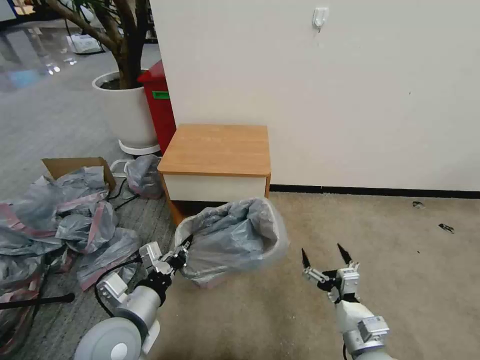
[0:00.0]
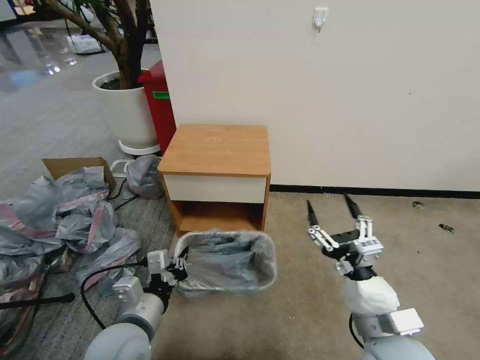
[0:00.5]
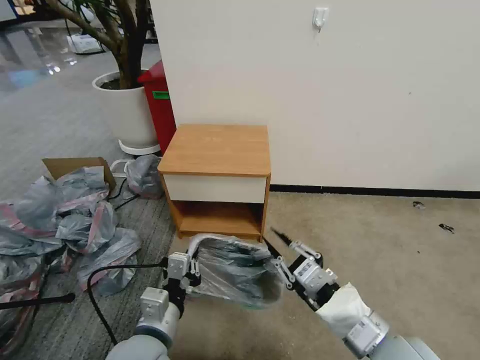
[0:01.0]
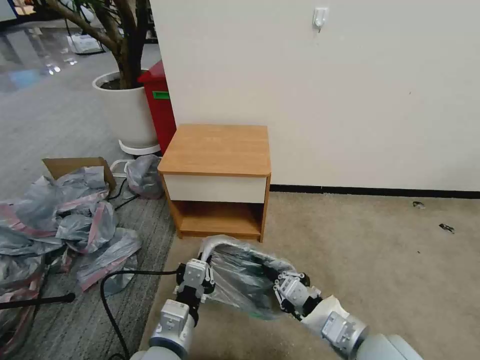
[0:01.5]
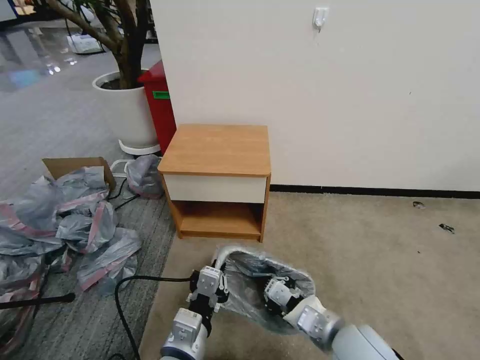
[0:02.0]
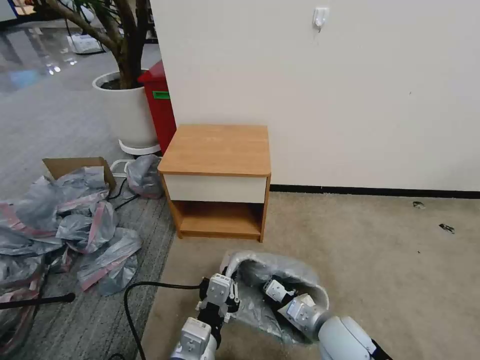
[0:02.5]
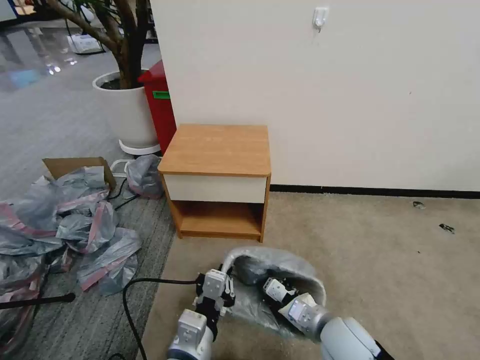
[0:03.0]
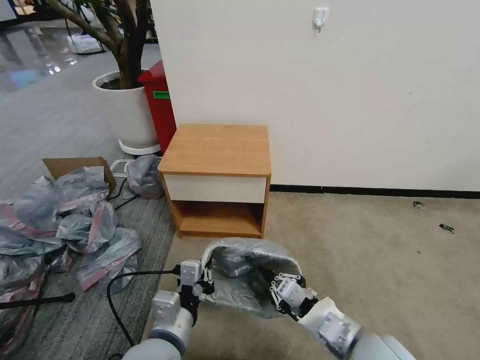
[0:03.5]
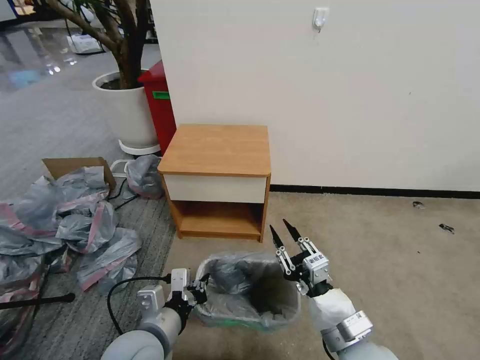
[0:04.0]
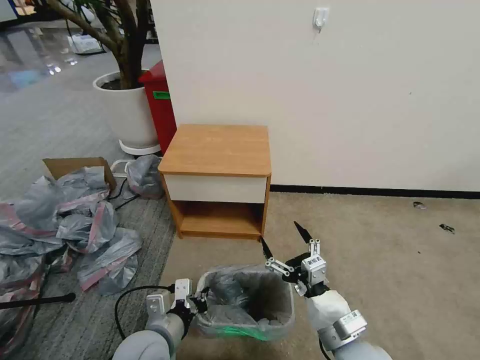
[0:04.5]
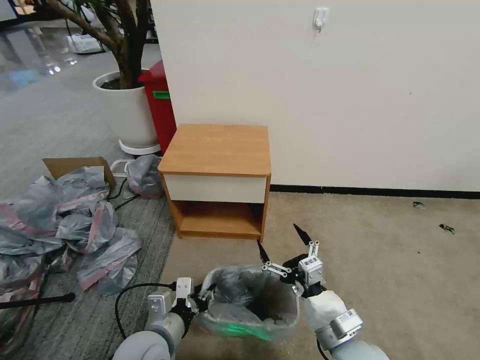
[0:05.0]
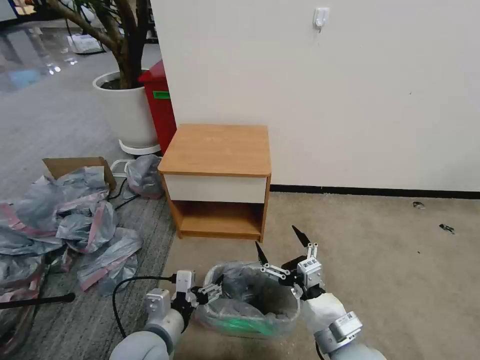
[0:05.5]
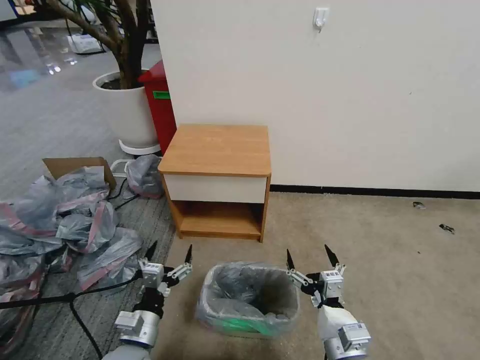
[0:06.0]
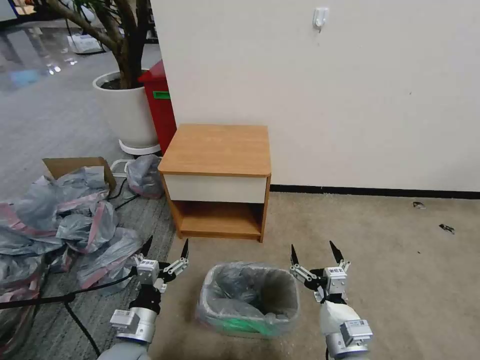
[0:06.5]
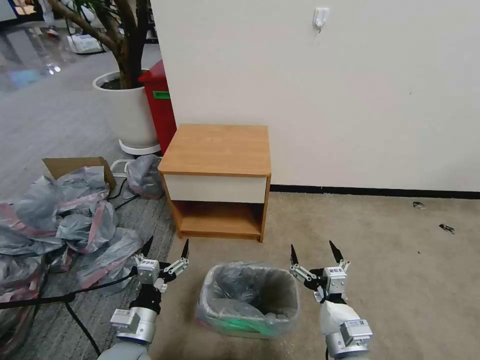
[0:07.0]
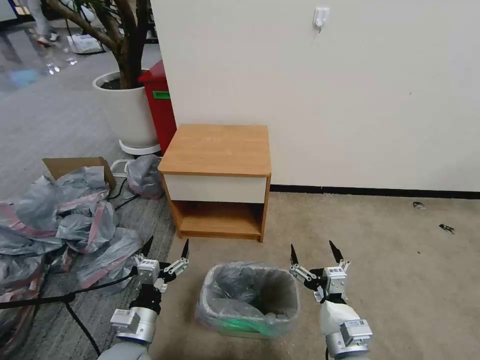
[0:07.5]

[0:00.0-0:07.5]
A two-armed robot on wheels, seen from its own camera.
Task of the whole recording: Pick up the garbage bag from the table and place it over the trash can.
0:00.0 to 0:02.0: The right gripper moves upward, some 5 cm, and closes its fingers; the left gripper shifts about 10 cm to the right and backward.
0:02.0 to 0:04.0: The left gripper shifts about 5 cm to the left. The right gripper reaches approximately 5 cm downward, then returns.
0:04.0 to 0:05.5: The left gripper opens its fingers. Meanwhile the right gripper opens.
0:05.5 to 0:07.5: The left gripper moves approximately 5 cm.

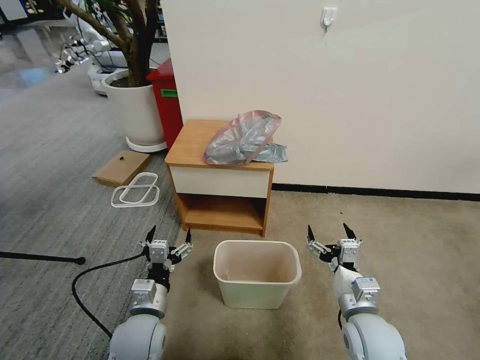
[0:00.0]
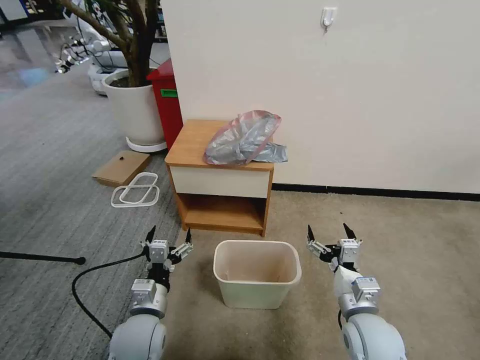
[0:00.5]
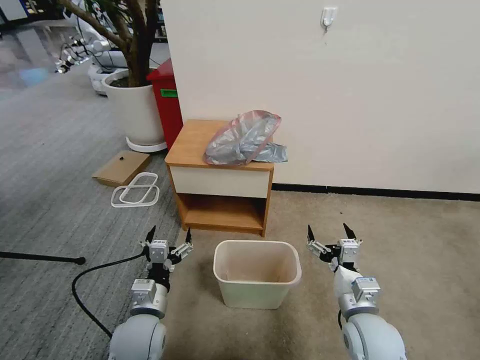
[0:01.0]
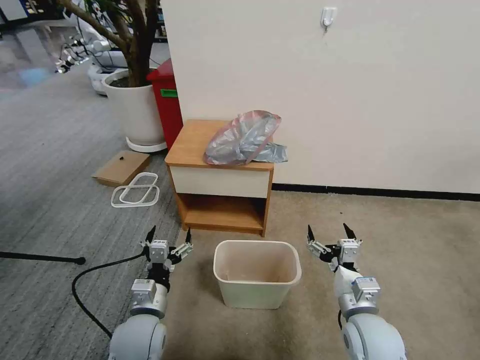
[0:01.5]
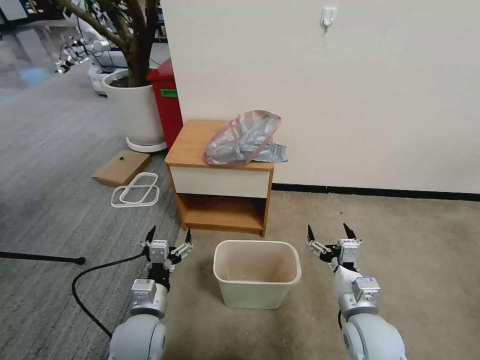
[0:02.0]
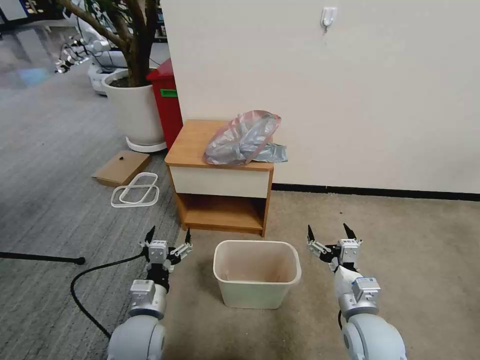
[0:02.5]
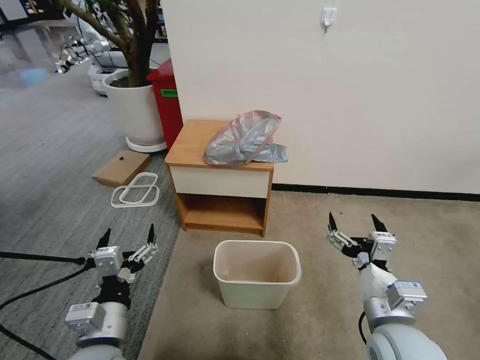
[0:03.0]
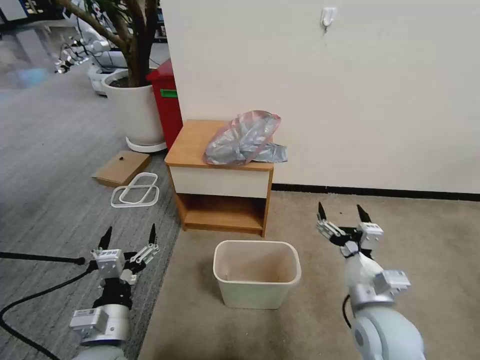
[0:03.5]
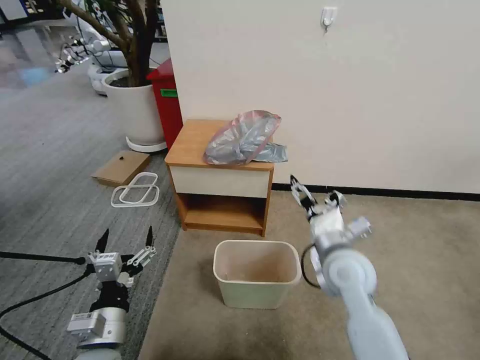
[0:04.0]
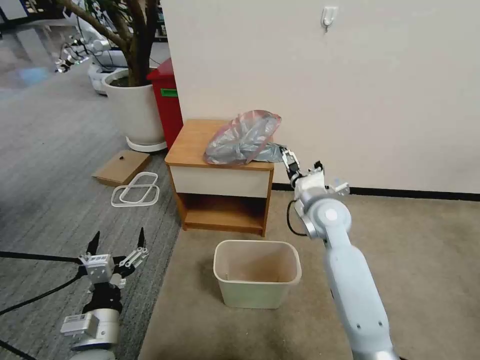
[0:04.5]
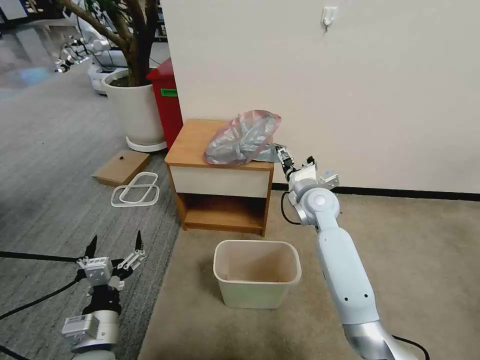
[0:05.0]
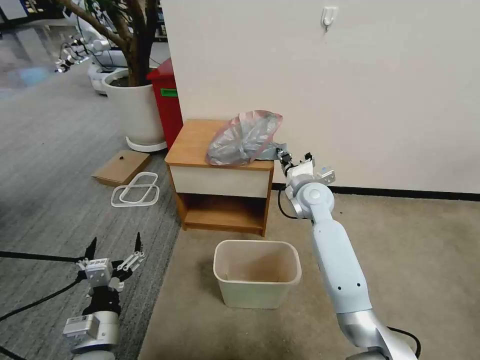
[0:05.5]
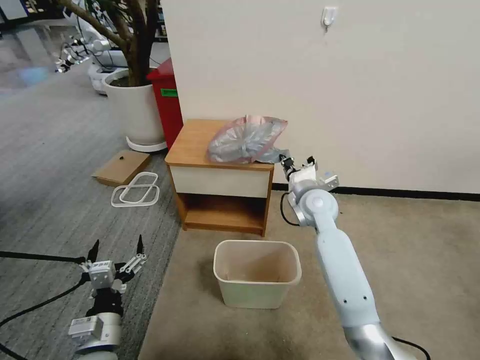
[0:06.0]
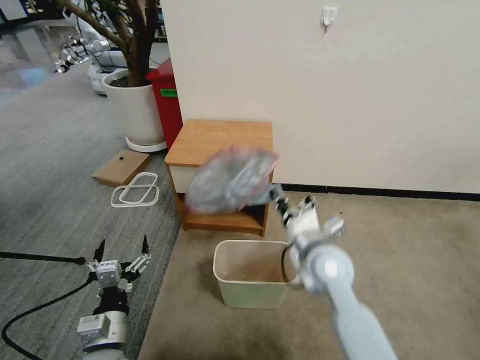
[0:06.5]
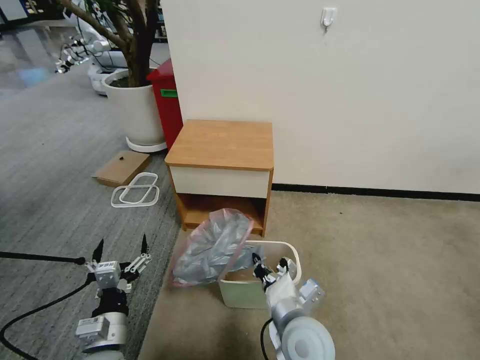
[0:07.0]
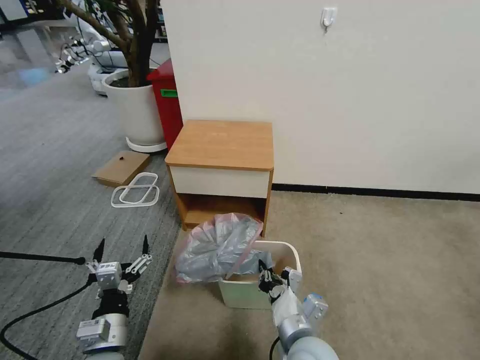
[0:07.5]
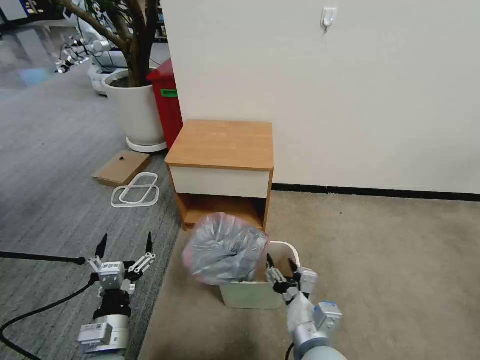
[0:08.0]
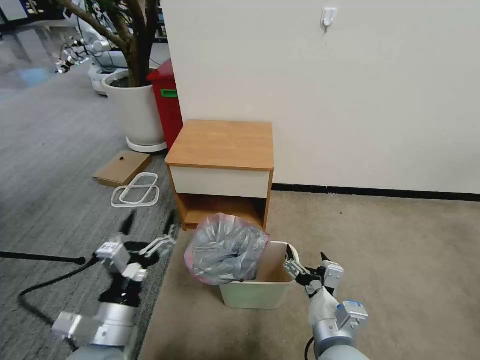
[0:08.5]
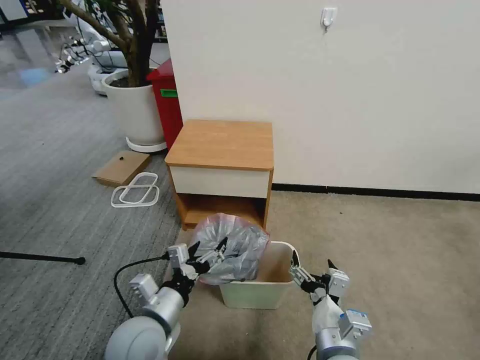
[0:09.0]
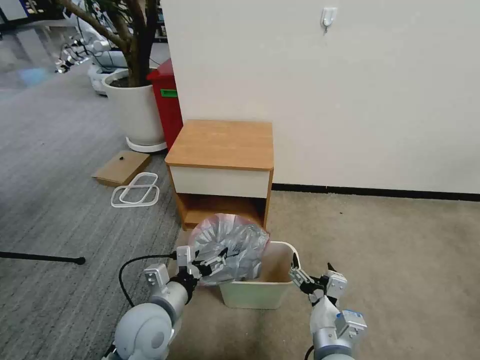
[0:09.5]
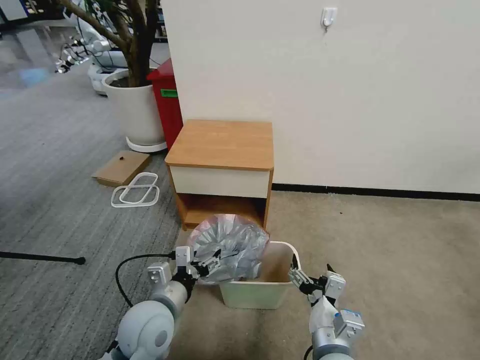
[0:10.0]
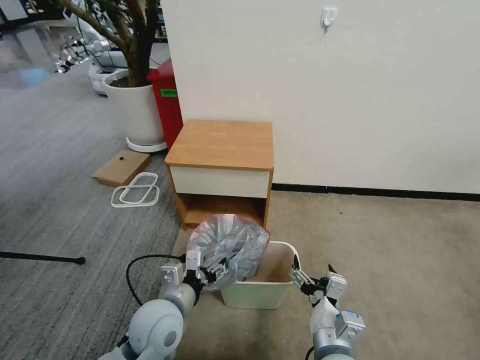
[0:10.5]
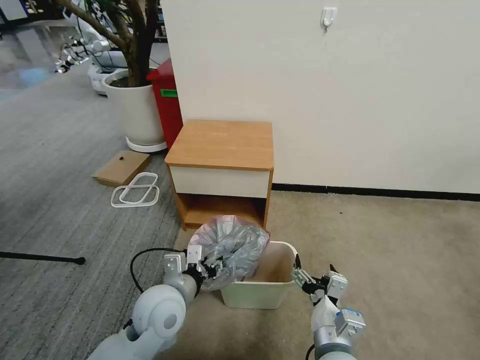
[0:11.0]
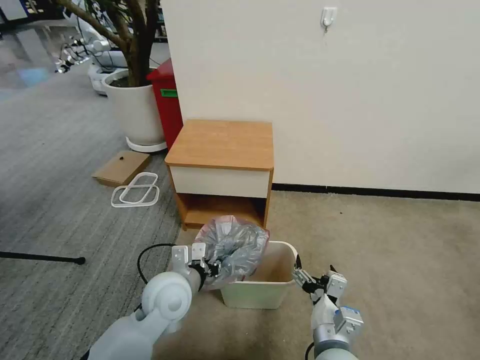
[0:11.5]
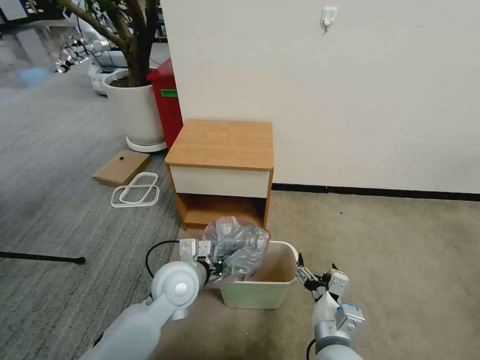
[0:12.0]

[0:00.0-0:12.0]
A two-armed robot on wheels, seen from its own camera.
Task of the whole recording: Pick up the garbage bag from the table and place it over the trash can.
0:02.0 to 0:04.0: The right gripper travels forward and upward by approximately 15 cm; the left gripper shifts roughly 10 cm backward and upward.
0:04.0 to 0:06.0: The right gripper shifts about 15 cm forward, and closes up.
0:06.0 to 0:08.0: The right gripper shifts about 30 cm backward, and opens.
0:08.0 to 0:10.0: The left gripper shifts approximately 10 cm forward and to the right.
0:10.0 to 0:12.0: The left gripper shifts about 10 cm forward, and closes.

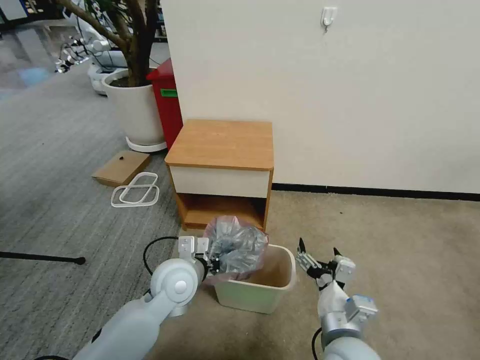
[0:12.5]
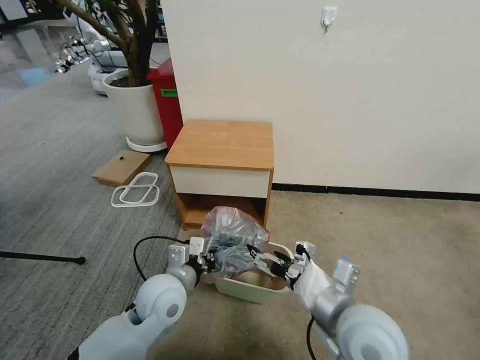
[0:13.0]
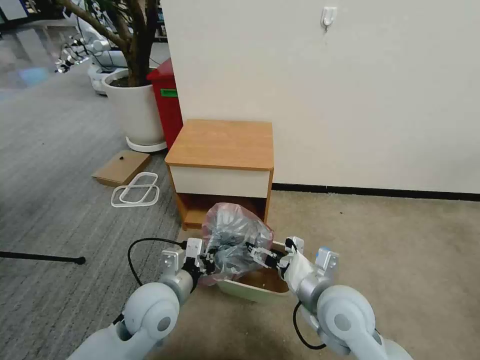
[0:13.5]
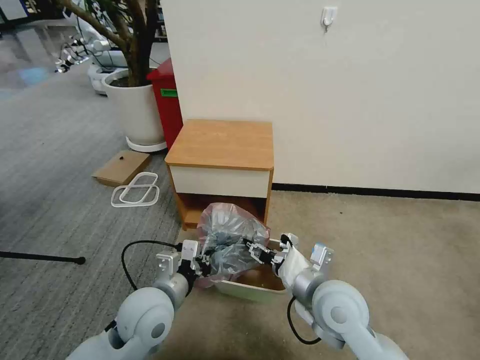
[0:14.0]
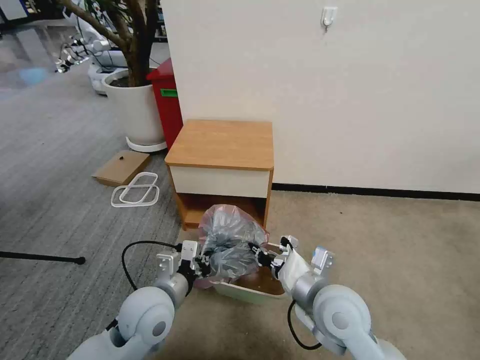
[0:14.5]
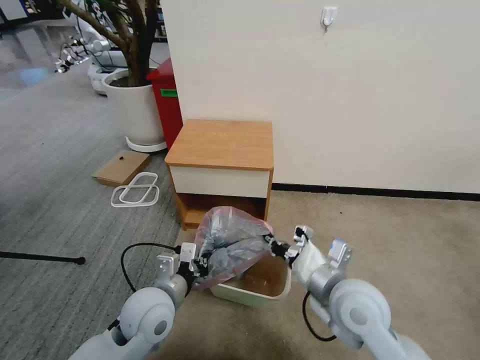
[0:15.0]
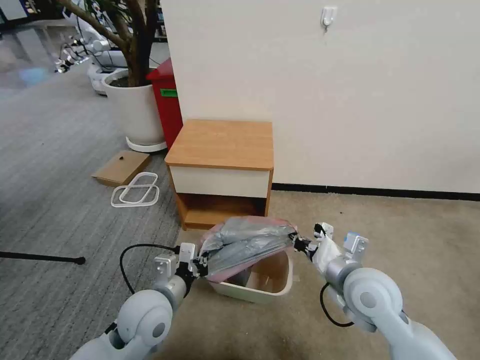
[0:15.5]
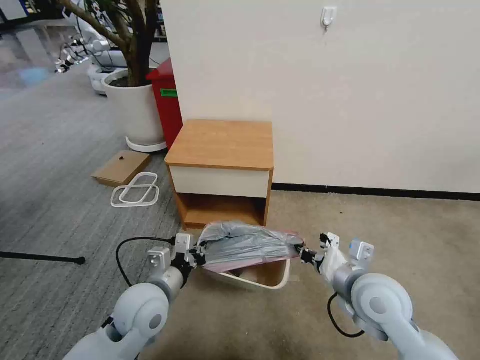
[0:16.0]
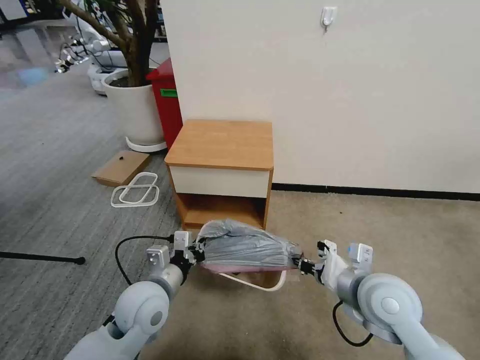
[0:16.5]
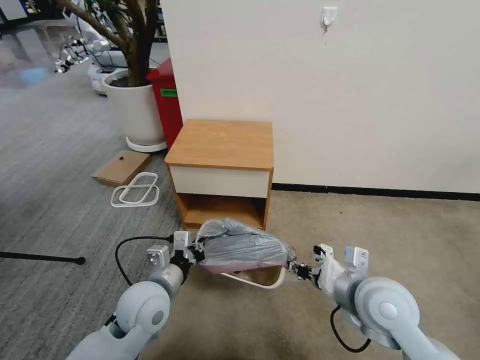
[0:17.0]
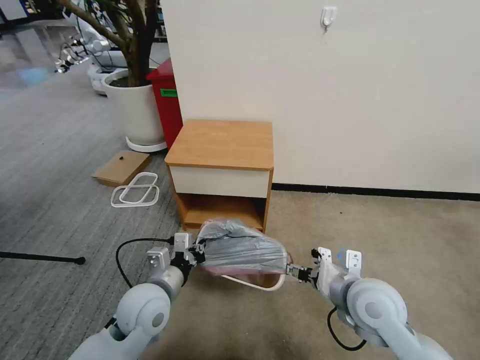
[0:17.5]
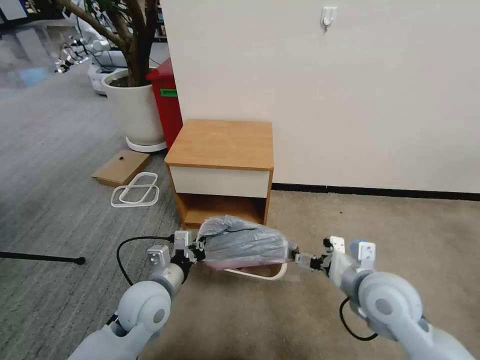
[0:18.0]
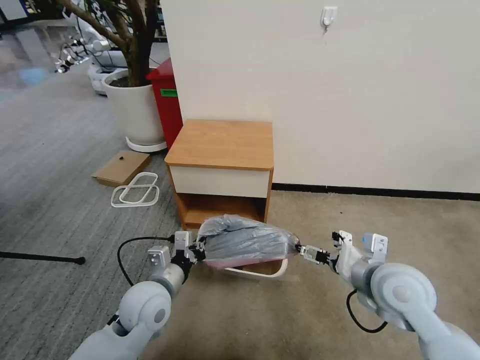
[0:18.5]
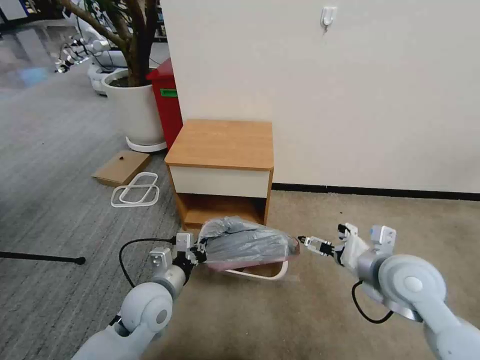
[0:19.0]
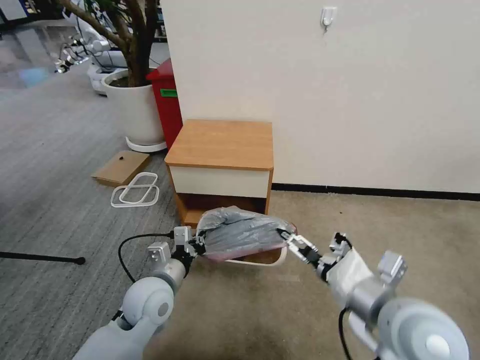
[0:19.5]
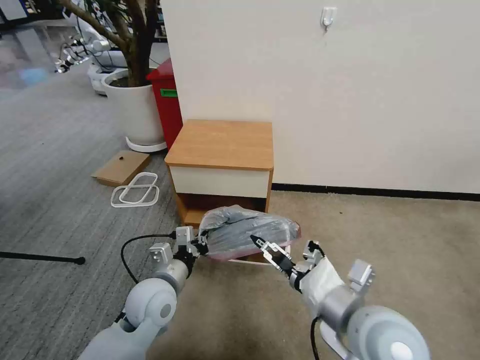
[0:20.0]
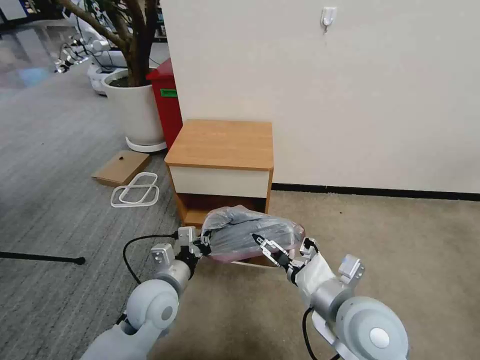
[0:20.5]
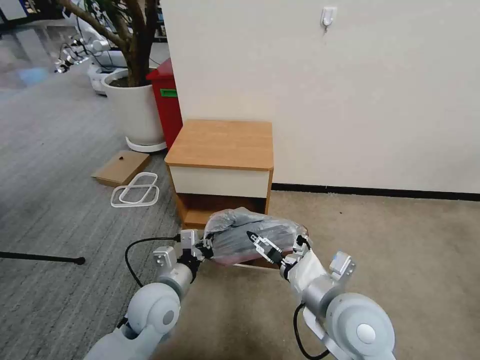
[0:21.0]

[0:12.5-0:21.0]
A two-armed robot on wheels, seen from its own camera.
Task of the whole recording: Pick up the garbage bag from the table and place it over the trash can.
0:12.5 to 0:14.5: The right gripper shifts approximately 10 cm forward and upward, and closes up. Meanwhile the left gripper heads backward, covering about 5 cm.
0:14.5 to 0:16.5: The right gripper is displaced to the right by some 10 cm.
0:16.5 to 0:19.0: The right gripper shifts by roughly 5 cm, and opens up.
0:19.0 to 0:21.0: The right gripper is displaced to the left and backward by about 15 cm.
